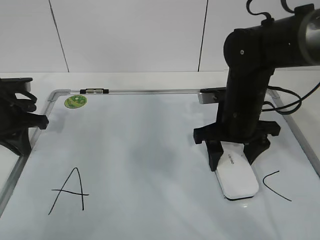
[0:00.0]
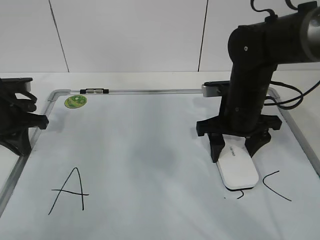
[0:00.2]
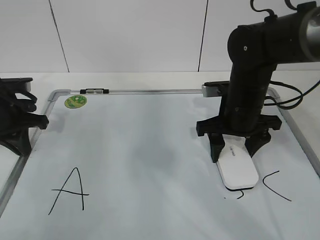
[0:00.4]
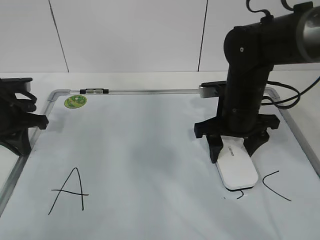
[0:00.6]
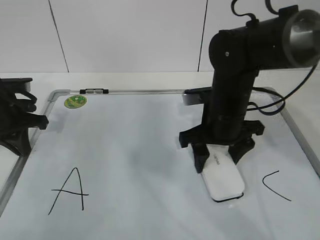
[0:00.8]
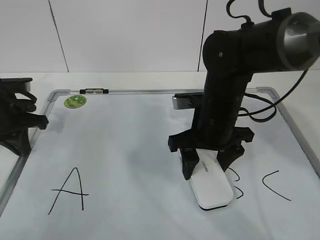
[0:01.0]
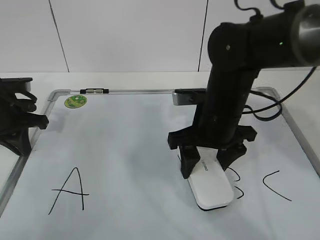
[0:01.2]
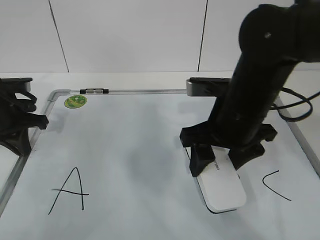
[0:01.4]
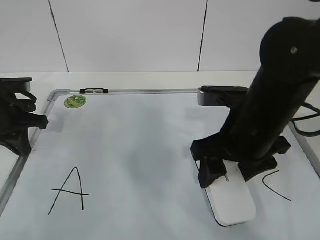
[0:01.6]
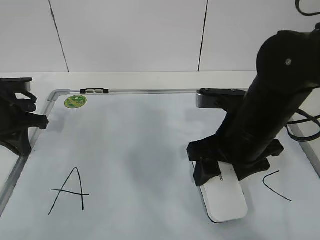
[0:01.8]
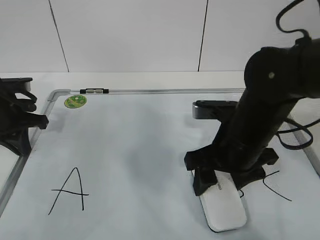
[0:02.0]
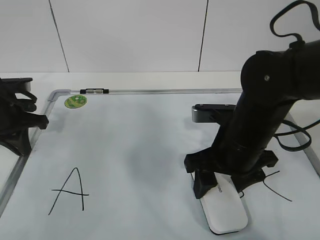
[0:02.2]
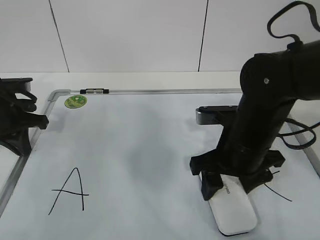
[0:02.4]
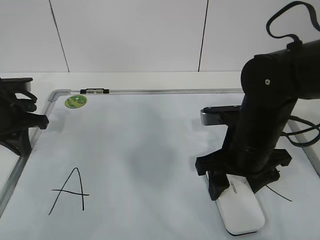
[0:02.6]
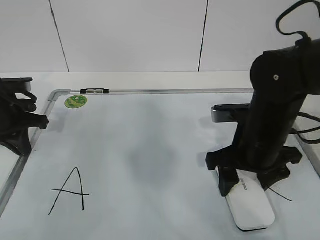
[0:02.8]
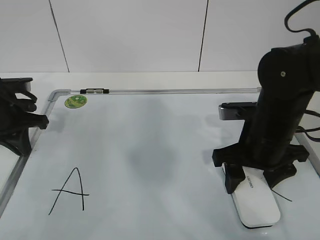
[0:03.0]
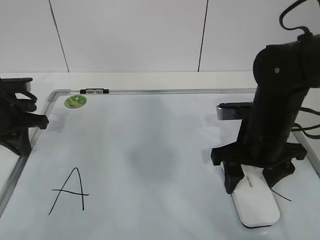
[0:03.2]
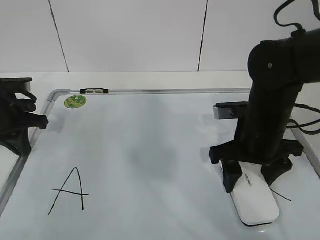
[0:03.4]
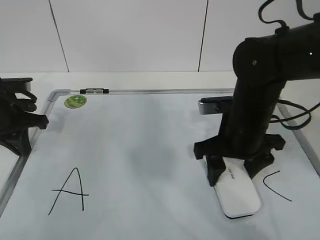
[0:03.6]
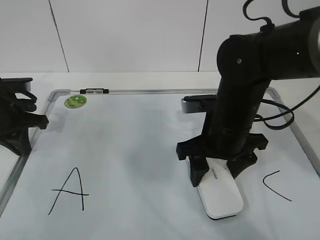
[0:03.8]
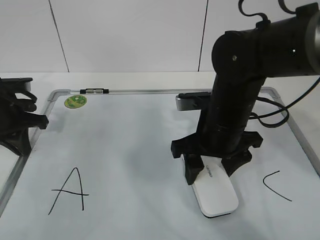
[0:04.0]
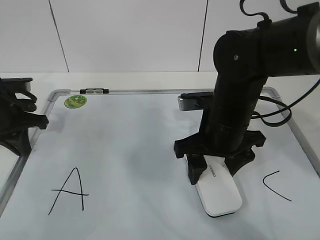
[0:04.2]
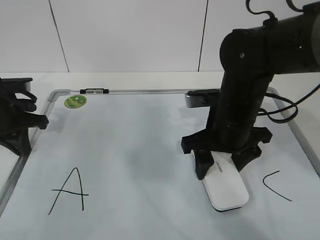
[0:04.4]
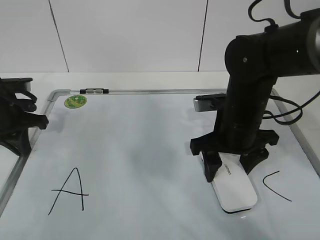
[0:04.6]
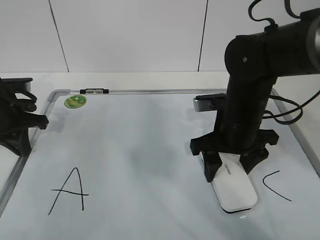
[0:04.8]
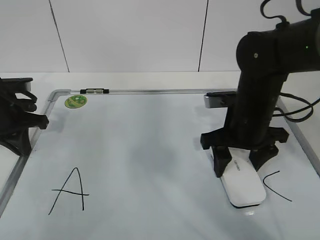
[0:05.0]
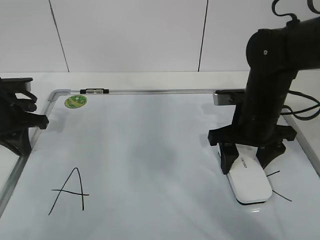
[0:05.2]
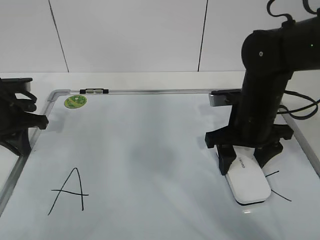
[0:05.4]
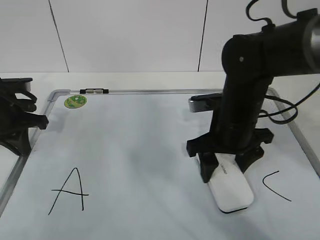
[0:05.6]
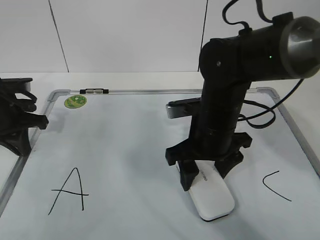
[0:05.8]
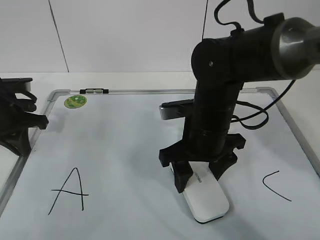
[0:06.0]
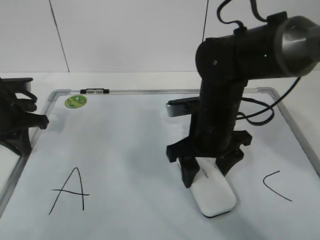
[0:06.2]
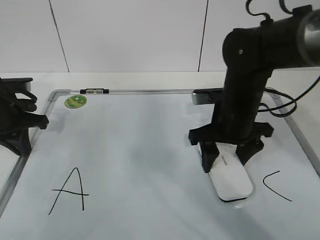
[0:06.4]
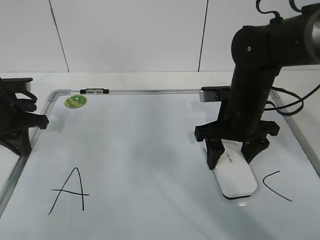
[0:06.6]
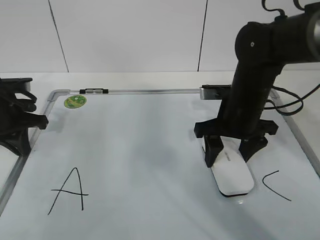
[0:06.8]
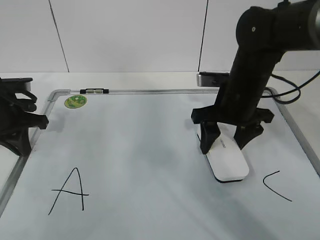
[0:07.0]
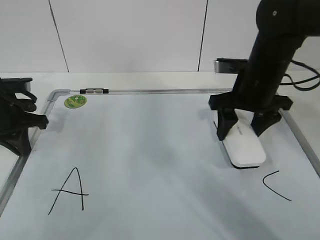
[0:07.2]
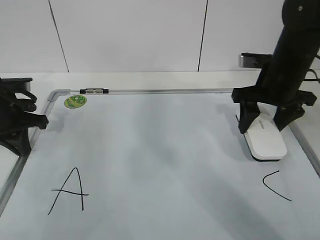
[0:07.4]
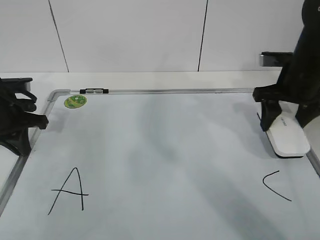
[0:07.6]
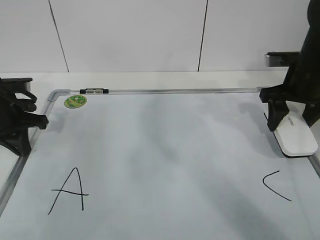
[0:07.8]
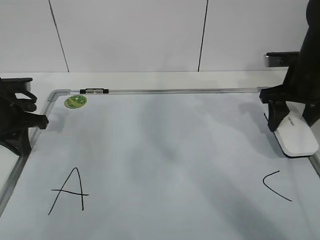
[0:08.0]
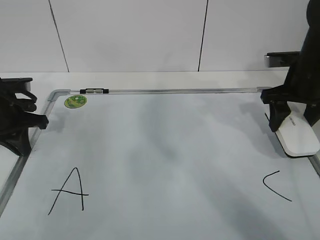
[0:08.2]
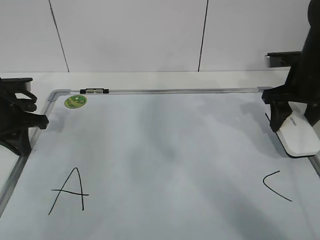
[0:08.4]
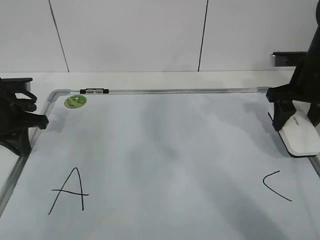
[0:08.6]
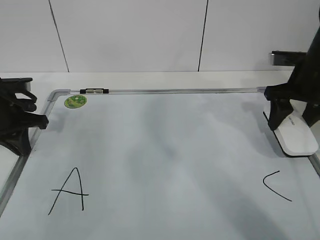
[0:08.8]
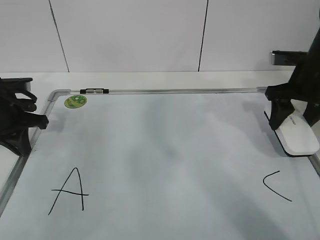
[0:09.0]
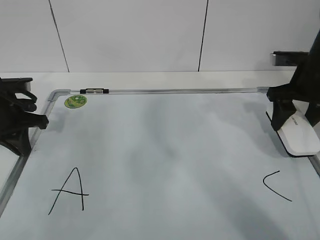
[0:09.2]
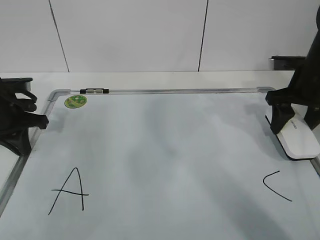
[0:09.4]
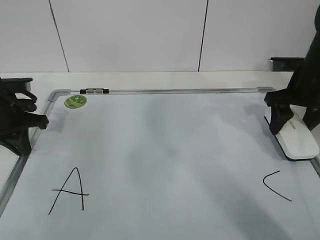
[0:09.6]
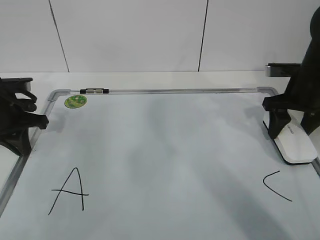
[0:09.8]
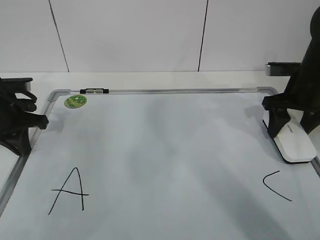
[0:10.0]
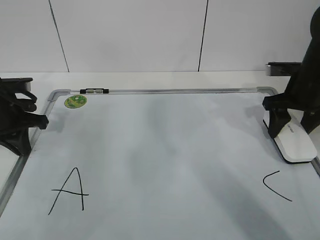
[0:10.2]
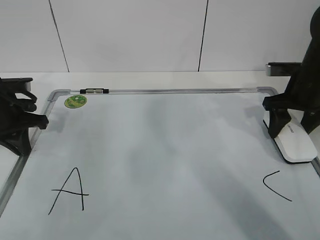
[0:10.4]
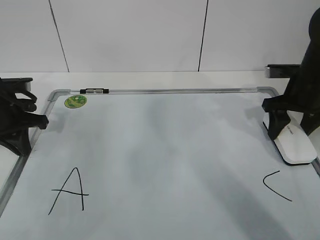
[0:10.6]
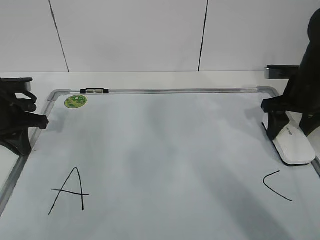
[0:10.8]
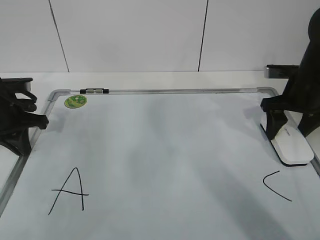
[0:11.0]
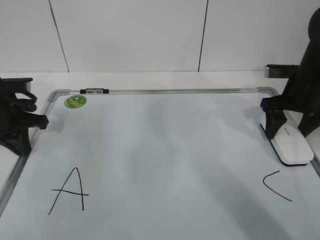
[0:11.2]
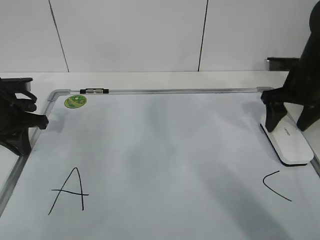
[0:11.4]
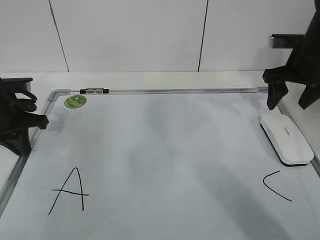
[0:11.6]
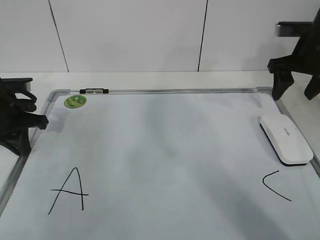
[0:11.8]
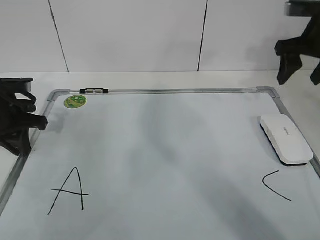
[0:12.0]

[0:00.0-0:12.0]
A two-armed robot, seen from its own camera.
Task of the whole recording: pick up the eraser on the blackboard and erase the letter "B".
Step, 0:00.0 to 0:03.6: Erase the letter B with your right hand.
Step, 0:03.8 to 0:07.0: Put down the eraser with your right hand.
0:00.0 to 0:01.6: The right gripper travels backward by about 5 cm.
0:01.6 to 0:03.0: The right gripper shifts by some 5 cm.
0:03.0 to 0:04.4: The right gripper moves some 5 cm.
0:04.4 to 0:06.0: The grippers make only small movements.
0:06.0 to 0:07.6: The right gripper moves to the right and forward, some 20 cm.
0:07.6 to 0:10.4: The grippers stay close to where they were, moving slightly.
0:10.4 to 0:12.0: The right gripper moves upward, approximately 10 cm.

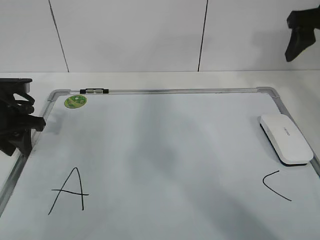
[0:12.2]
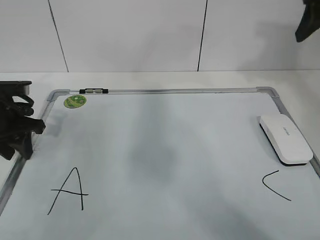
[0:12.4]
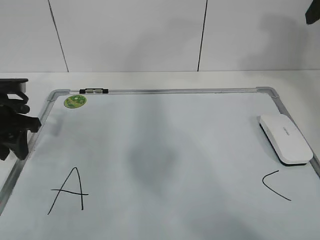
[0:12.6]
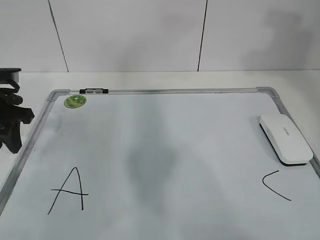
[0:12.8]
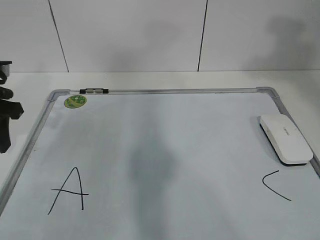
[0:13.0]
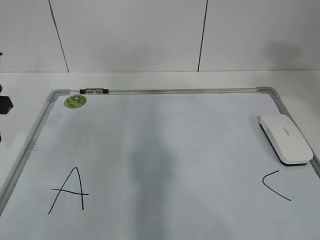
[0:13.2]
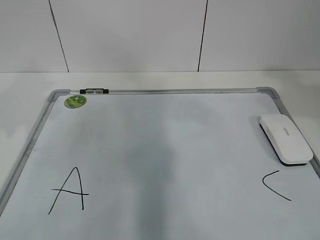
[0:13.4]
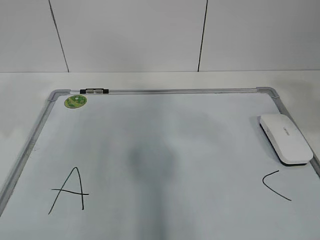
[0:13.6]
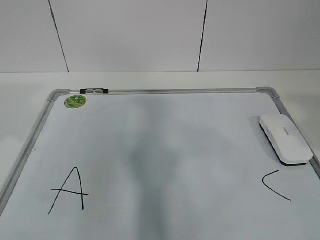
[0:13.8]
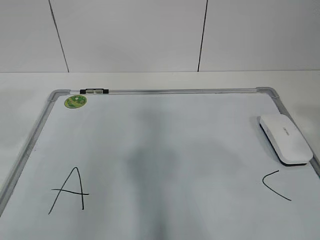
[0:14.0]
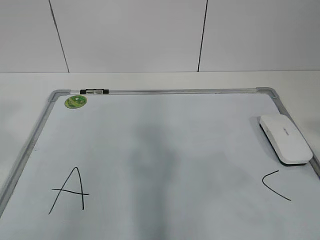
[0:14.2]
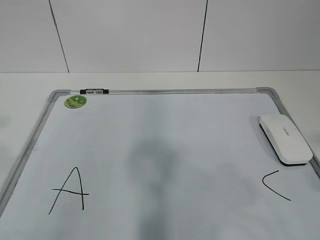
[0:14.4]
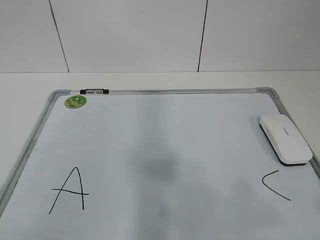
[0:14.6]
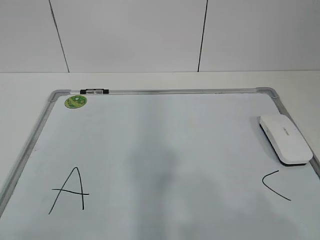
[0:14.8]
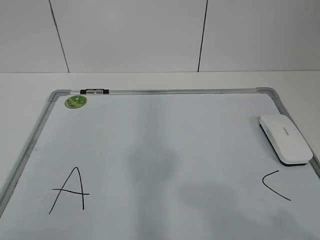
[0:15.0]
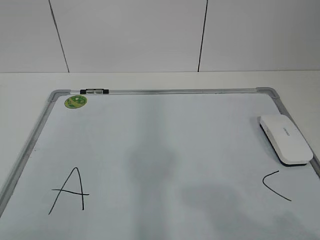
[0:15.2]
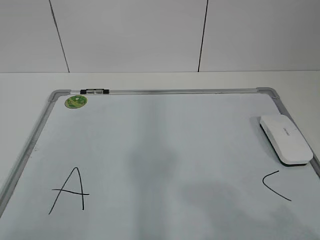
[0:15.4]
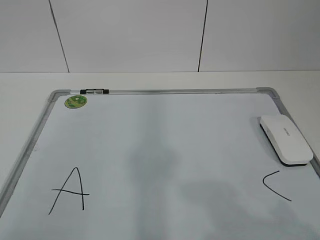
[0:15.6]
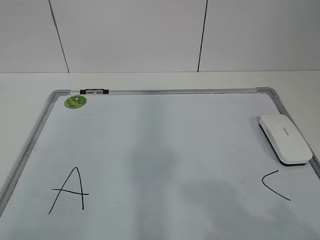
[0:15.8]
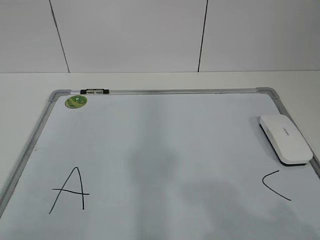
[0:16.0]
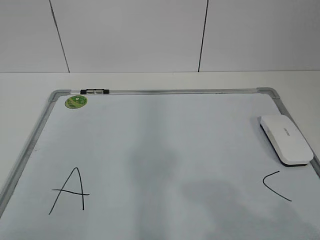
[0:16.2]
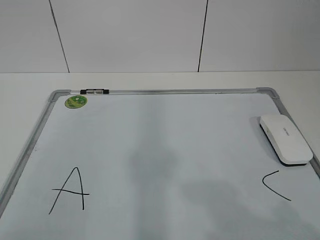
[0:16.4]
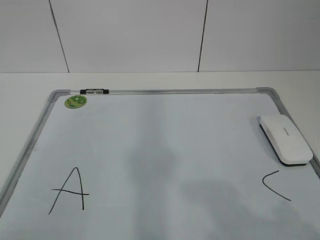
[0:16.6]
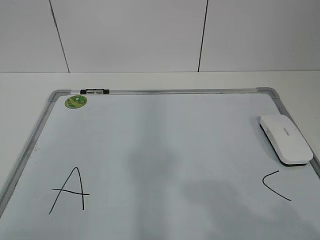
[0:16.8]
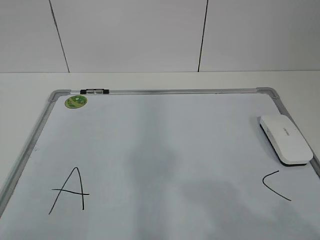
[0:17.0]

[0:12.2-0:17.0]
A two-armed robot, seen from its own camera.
Task of the whole recording: pick up the eraser on the blackboard and erase the letter "B".
0:12.2 to 0:13.8: The left gripper goes approximately 25 cm upward and backward; the right gripper shifts some 30 cm backward.
0:13.8 to 0:15.4: The left gripper goes about 20 cm backward. Meanwhile the right gripper moves downward and backward, about 15 cm.
0:15.4 to 0:17.0: Both grippers stay about where they are.

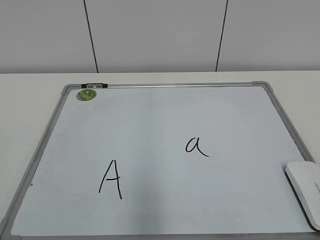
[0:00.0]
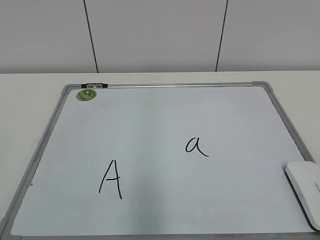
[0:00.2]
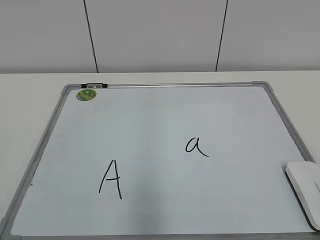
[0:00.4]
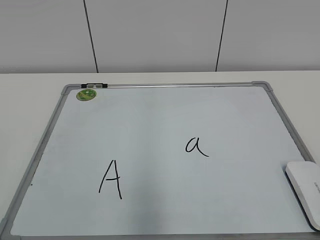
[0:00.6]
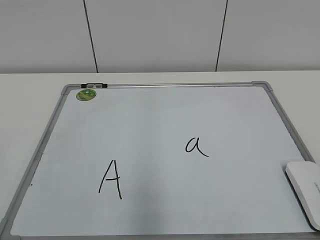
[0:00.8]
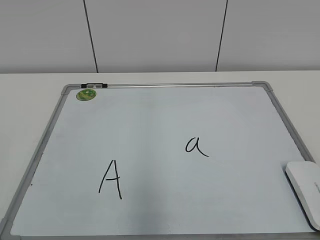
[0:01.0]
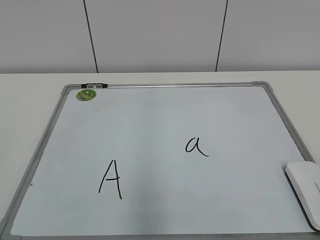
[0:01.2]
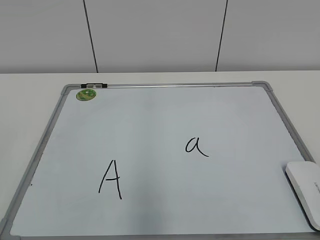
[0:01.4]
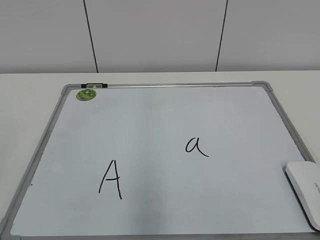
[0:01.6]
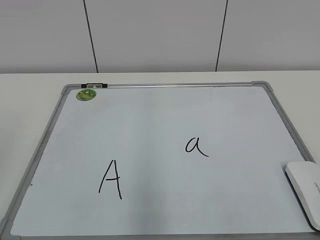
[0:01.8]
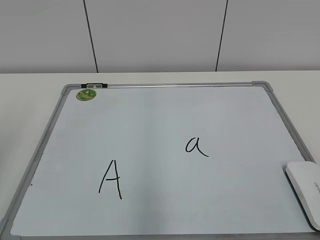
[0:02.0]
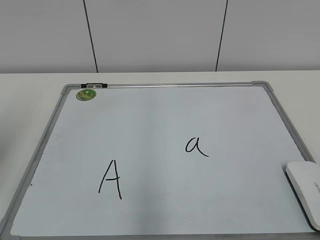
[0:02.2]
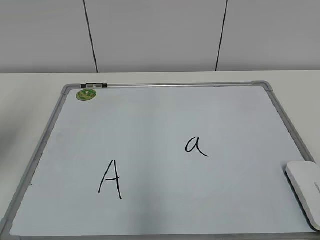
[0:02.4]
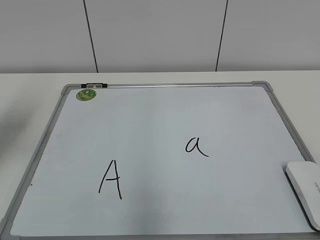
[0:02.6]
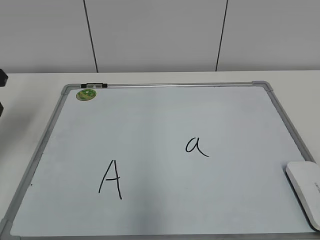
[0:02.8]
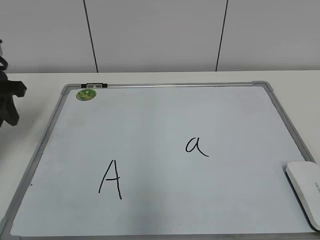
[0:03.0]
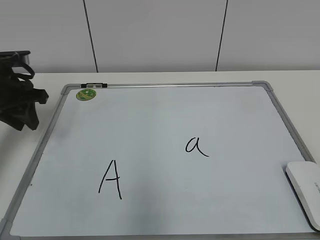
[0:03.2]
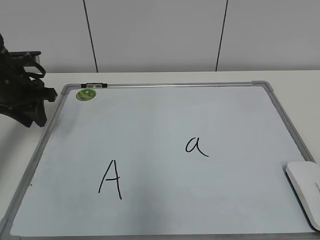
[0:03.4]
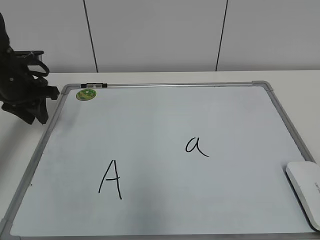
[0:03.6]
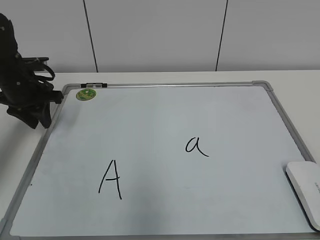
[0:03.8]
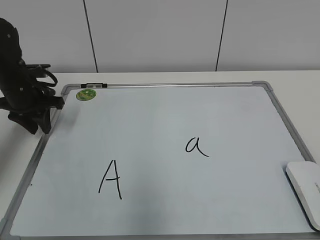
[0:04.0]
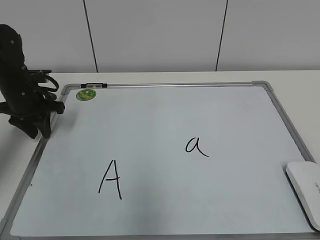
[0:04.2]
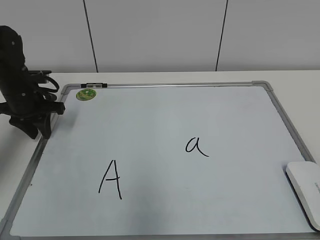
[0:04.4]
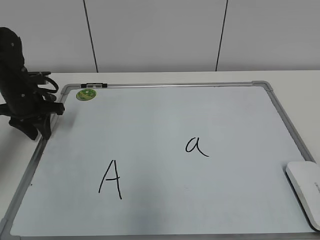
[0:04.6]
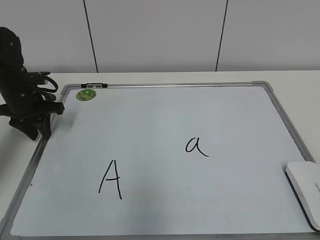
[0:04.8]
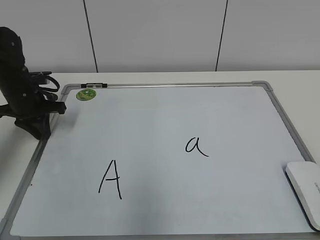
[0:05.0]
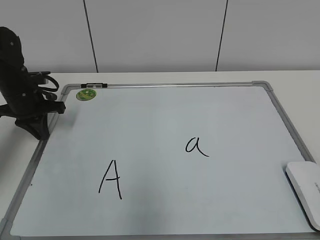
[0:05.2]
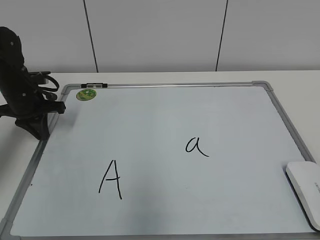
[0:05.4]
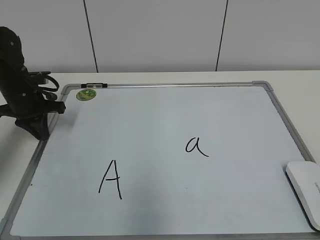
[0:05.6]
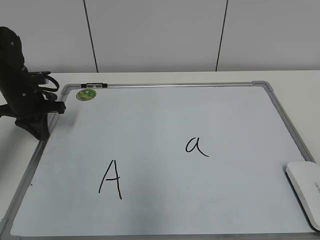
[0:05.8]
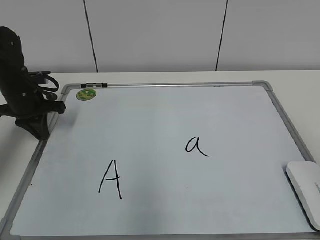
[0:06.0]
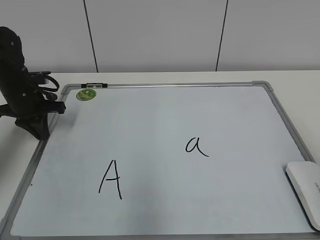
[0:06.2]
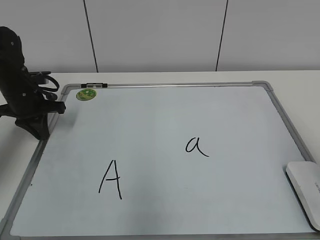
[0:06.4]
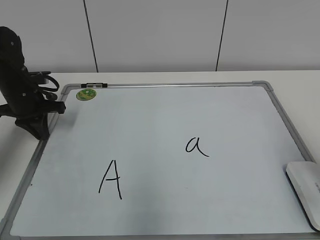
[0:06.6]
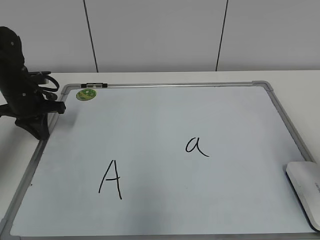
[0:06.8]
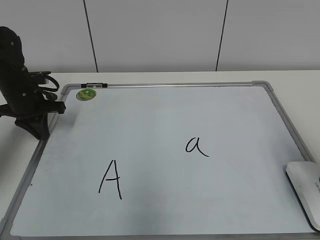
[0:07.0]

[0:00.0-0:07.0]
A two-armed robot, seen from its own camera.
Task of the whole recording: pick up the eraser on the blackboard and erase the letter "a".
Step, 0:00.0 to 0:05.0: Hold the drawing board steady with your left hand.
0:01.4 to 0:02.8: The left gripper shifts approximately 30 cm forward.
0:02.8 to 0:04.2: The left gripper travels downward and forward by roughly 15 cm.
0:04.2 to 0:05.6: The left gripper closes its fingers.
0:05.6 to 0:07.0: The right gripper is displaced forward by about 20 cm.
